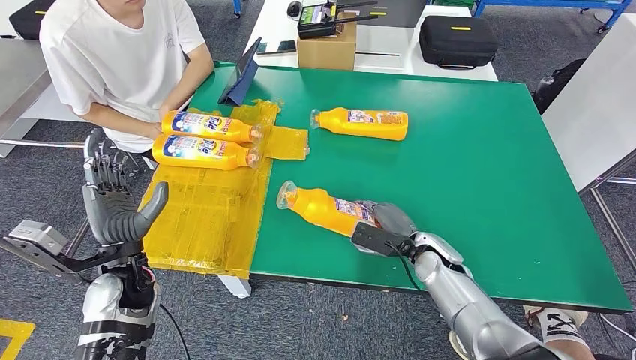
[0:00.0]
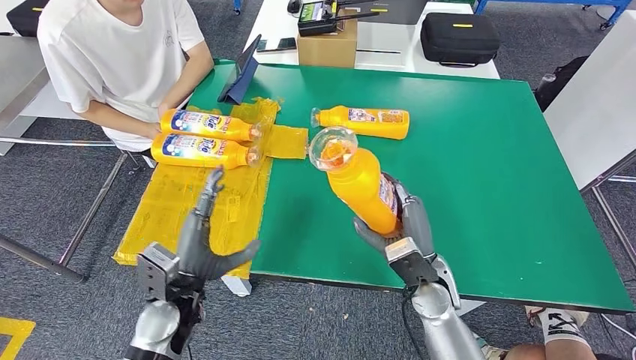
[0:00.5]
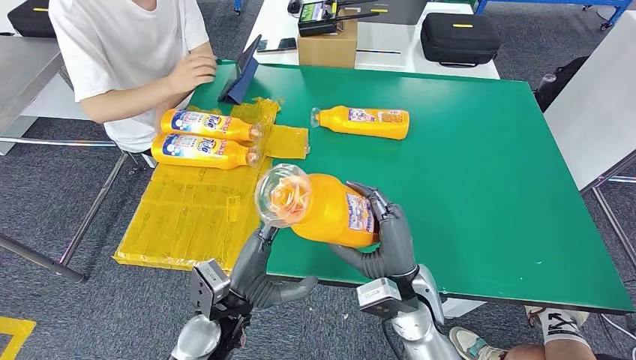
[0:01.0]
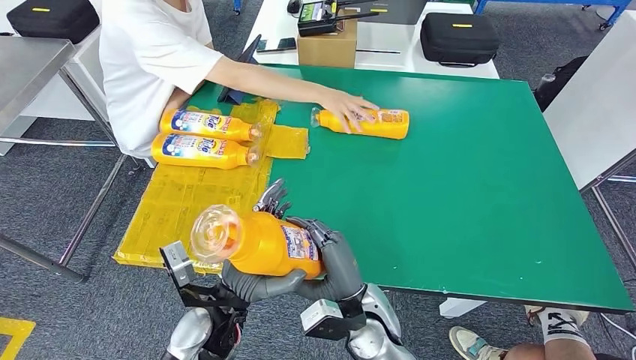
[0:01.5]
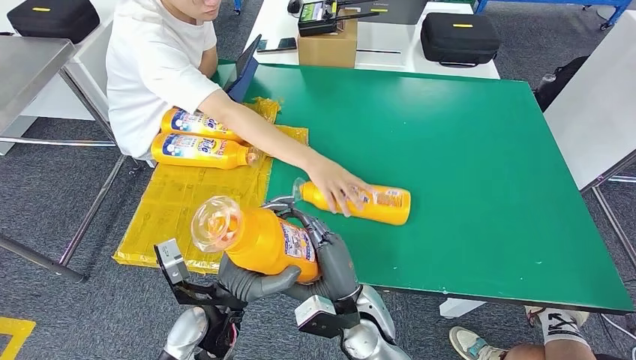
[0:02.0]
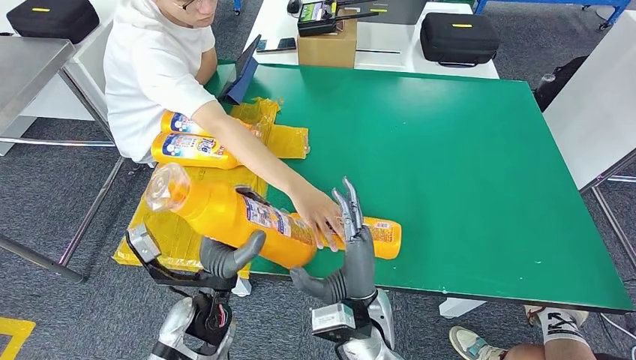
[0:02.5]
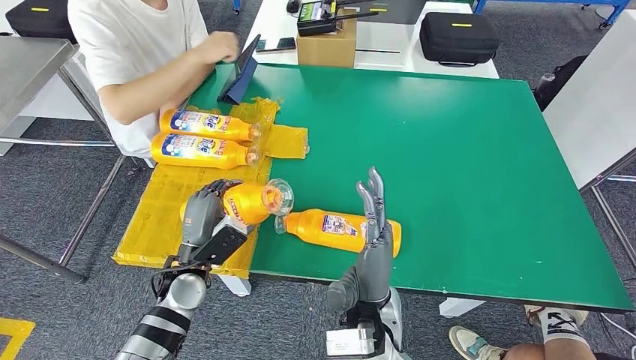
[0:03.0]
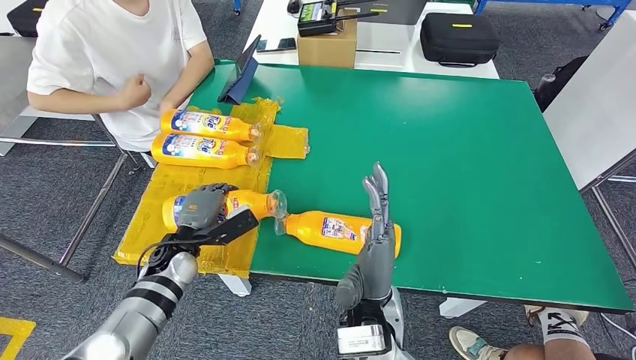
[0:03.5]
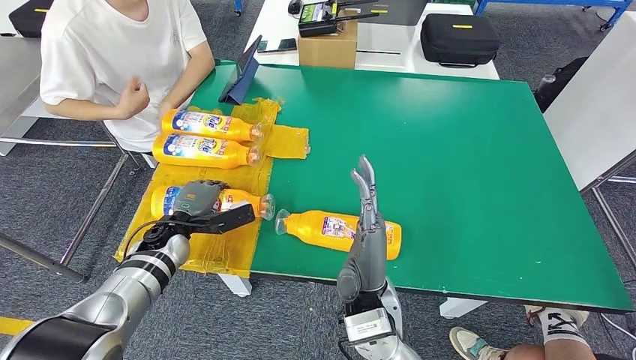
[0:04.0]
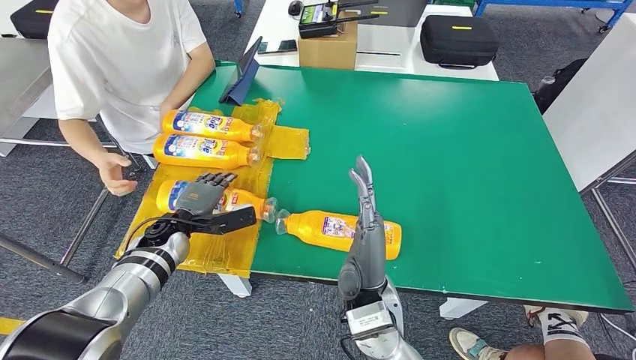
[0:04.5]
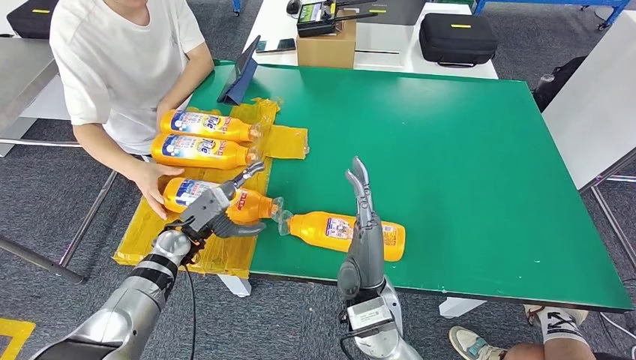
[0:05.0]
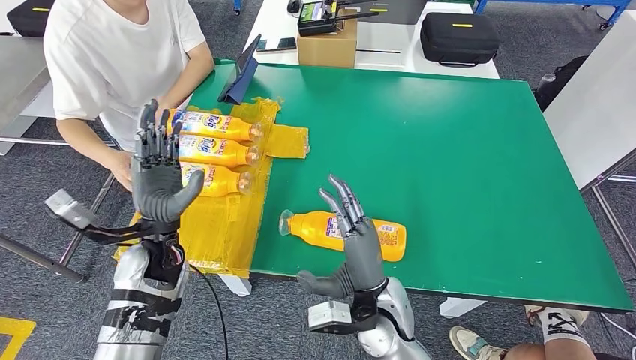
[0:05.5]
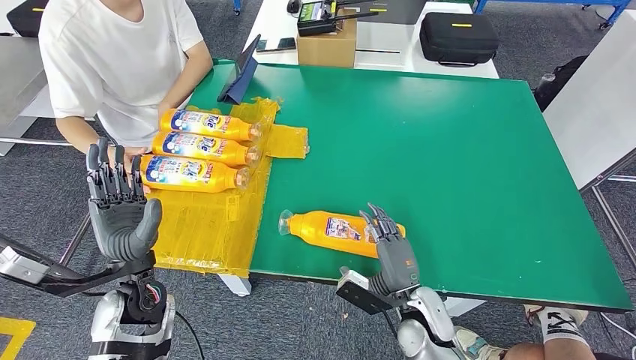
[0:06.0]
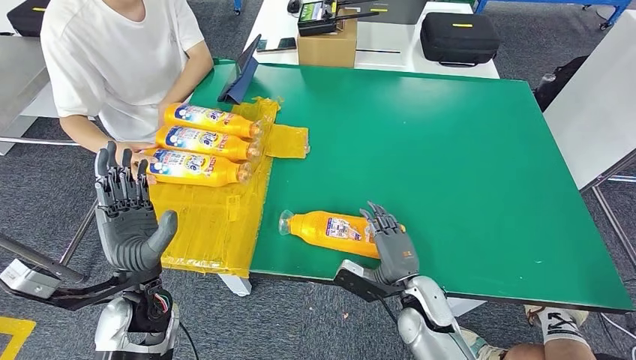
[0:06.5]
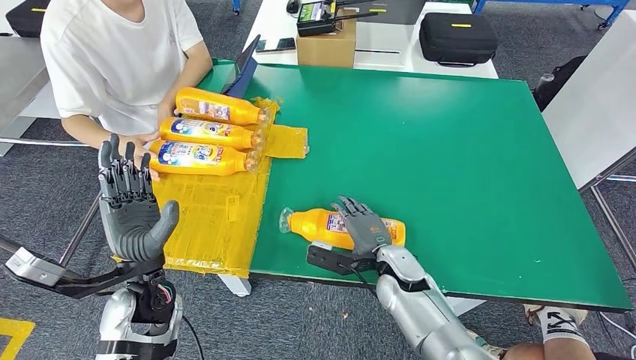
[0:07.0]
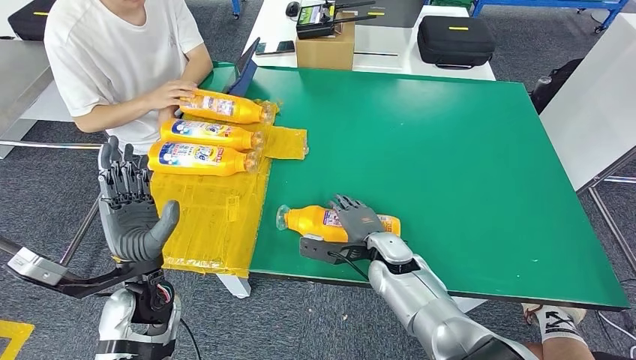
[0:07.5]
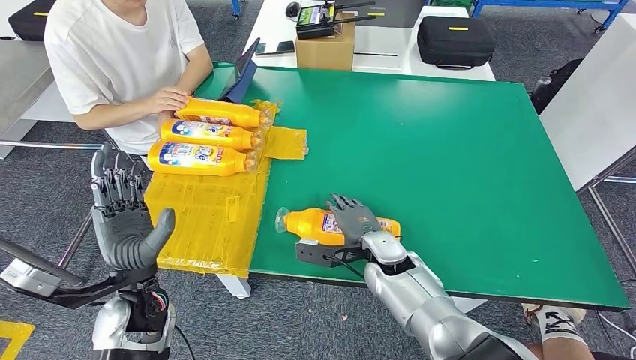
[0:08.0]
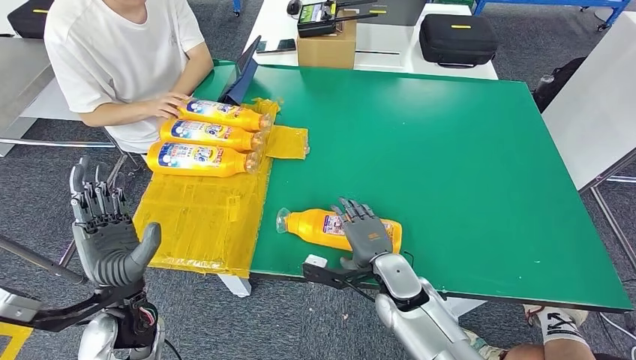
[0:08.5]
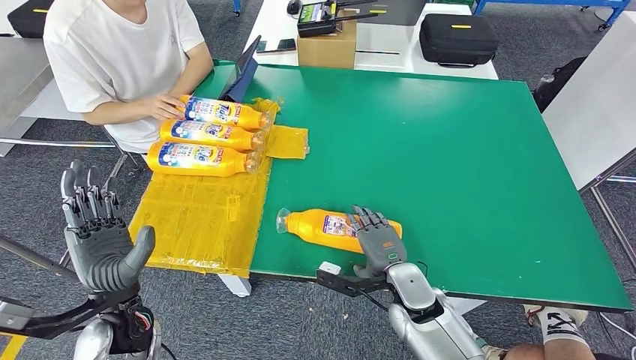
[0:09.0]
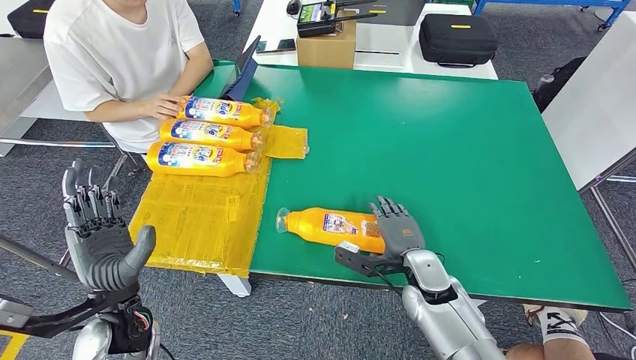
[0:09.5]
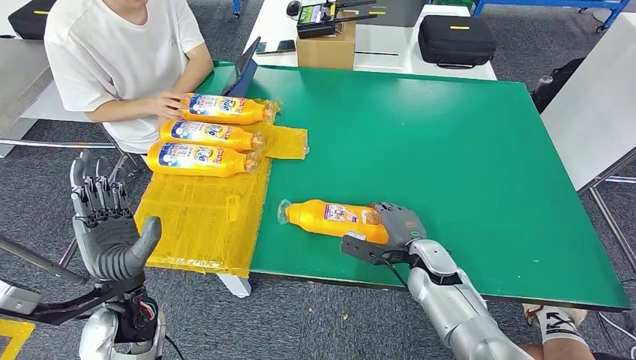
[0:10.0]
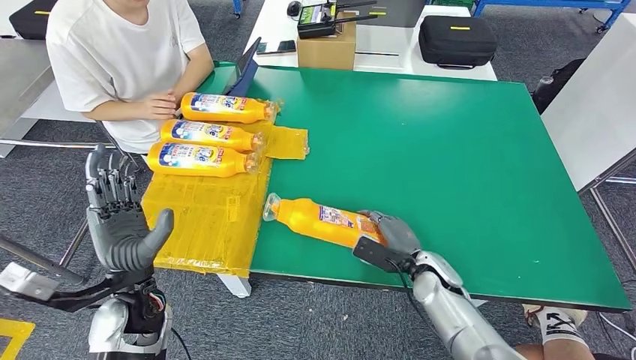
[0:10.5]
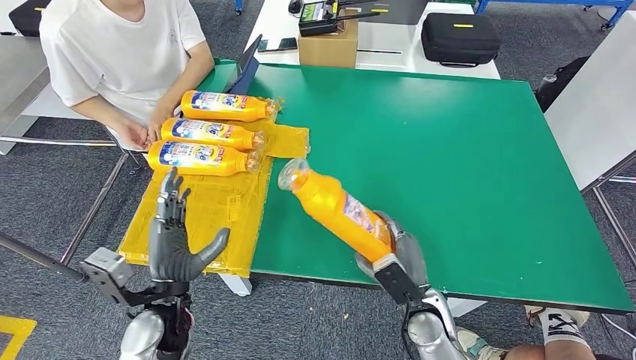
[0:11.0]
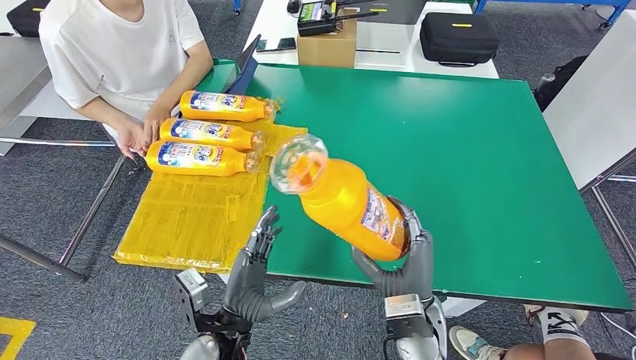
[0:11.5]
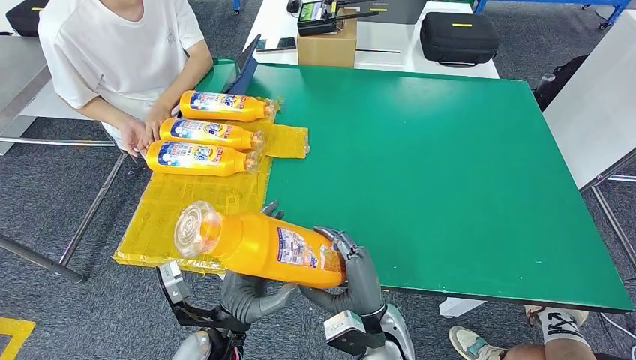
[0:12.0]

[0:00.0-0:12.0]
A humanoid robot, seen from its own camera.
Step, 0:02.0 to 0:03.0: Flip the fast-moving consumer goods bottle to the front side.
Step, 0:03.5 to 0:11.0: Pick up the fast-moving consumer goods bottle from the table.
0:08.0 to 0:10.0: The right hand heads to the right, covering about 10 cm.

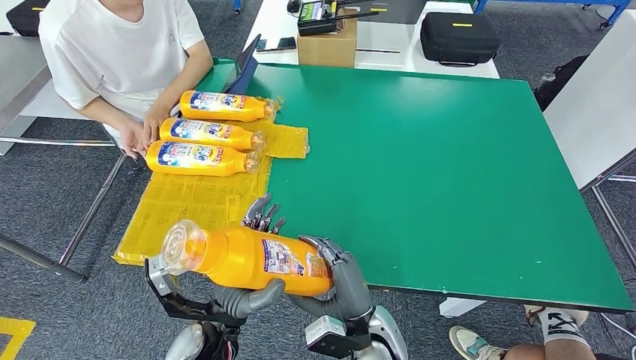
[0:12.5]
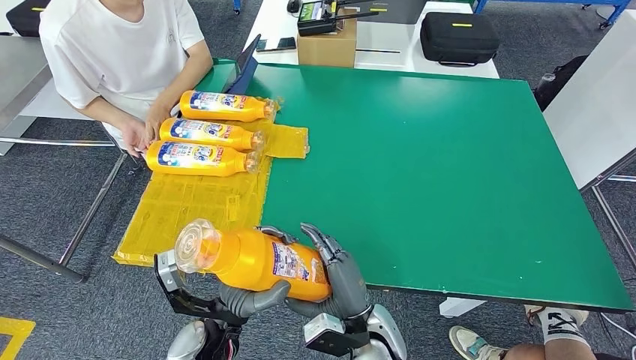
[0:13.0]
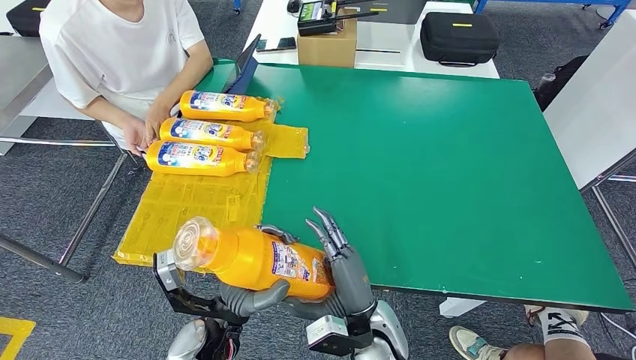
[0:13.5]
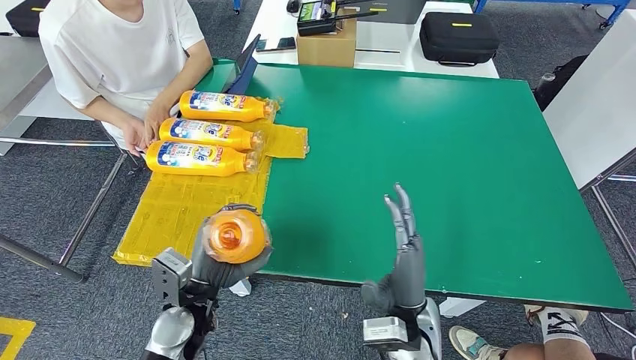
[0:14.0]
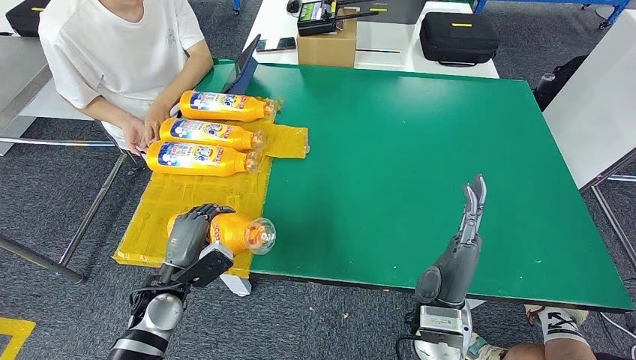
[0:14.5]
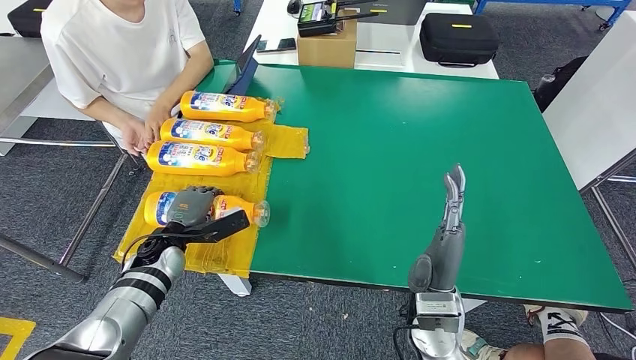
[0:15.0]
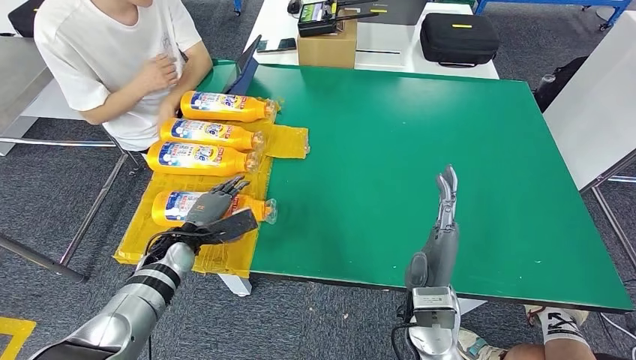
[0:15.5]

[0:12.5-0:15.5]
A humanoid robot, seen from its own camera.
Step, 0:12.5 to 0:15.5: Flip the fast-moving consumer goods bottle to the front side.
0:12.5 to 0:14.0: The right hand moves upward, roughly 5 cm, while the left hand is displaced to the left by some 5 cm.
0:14.0 to 0:15.5: The left hand goes approximately 15 cm forward and to the left.
